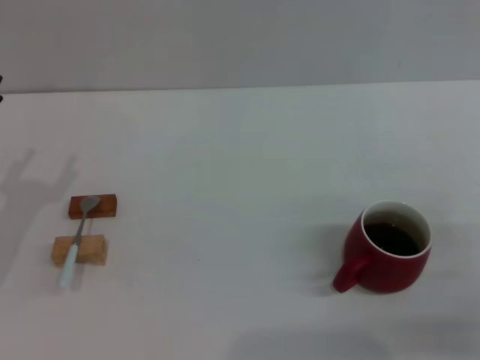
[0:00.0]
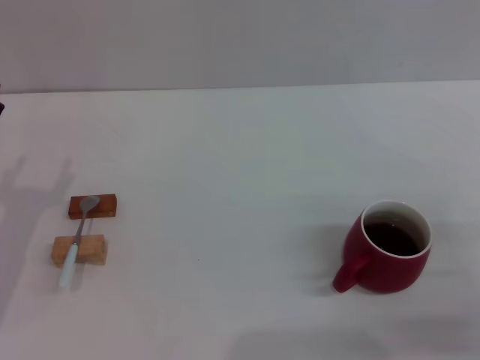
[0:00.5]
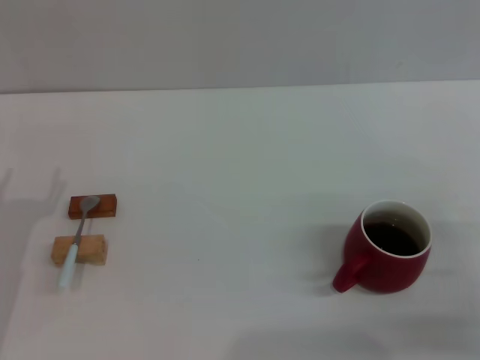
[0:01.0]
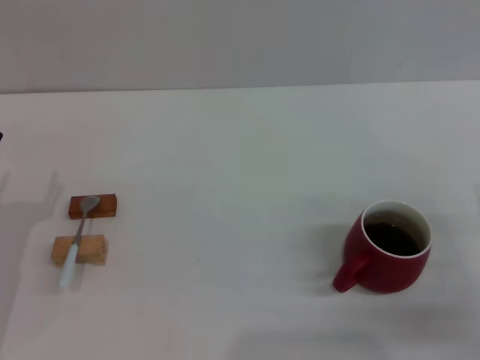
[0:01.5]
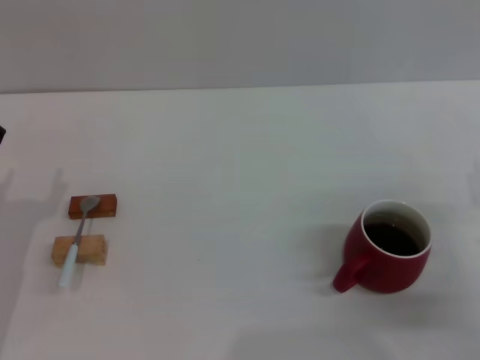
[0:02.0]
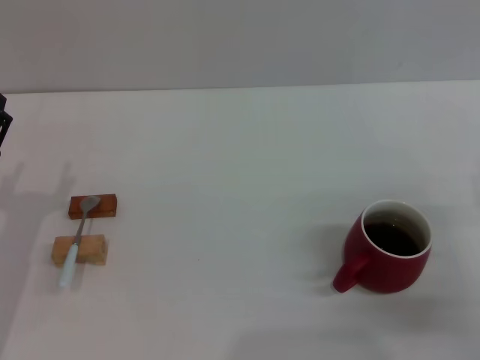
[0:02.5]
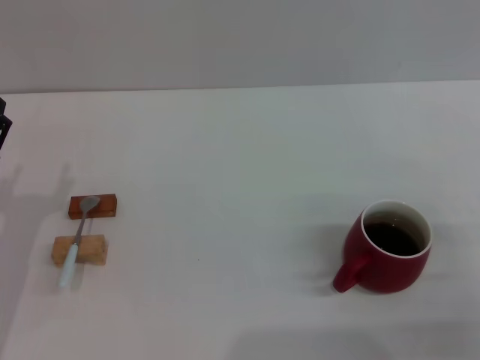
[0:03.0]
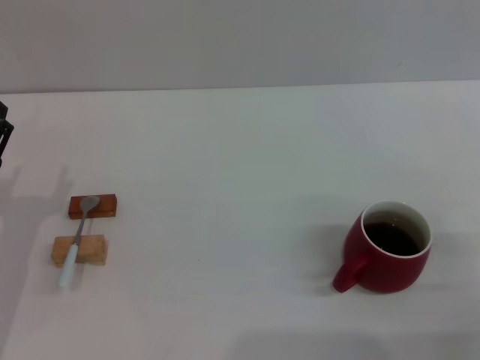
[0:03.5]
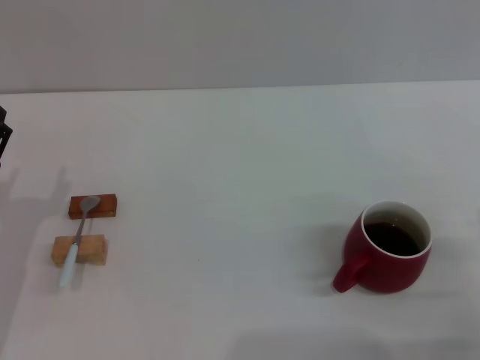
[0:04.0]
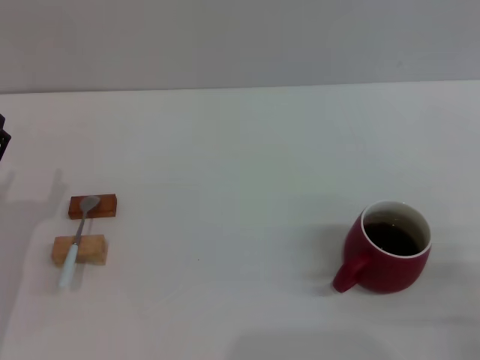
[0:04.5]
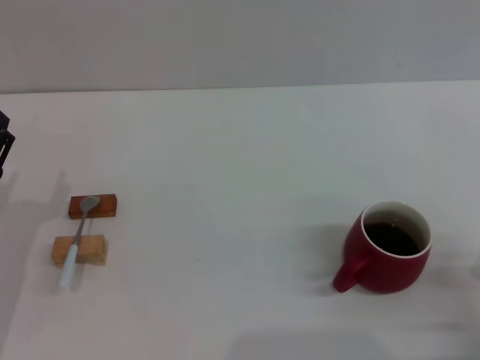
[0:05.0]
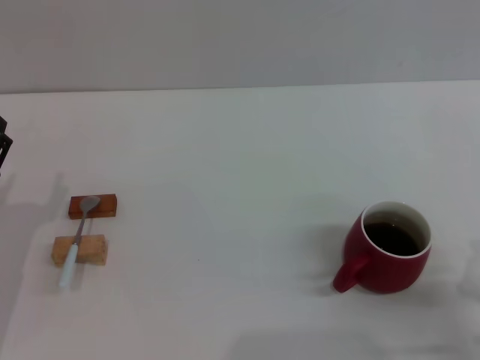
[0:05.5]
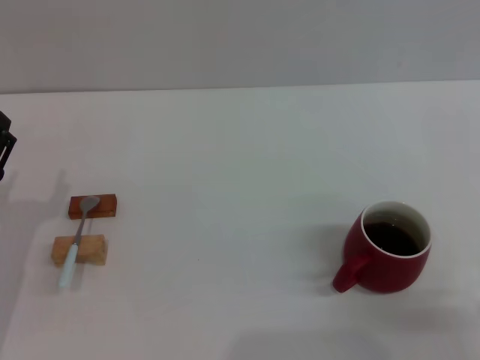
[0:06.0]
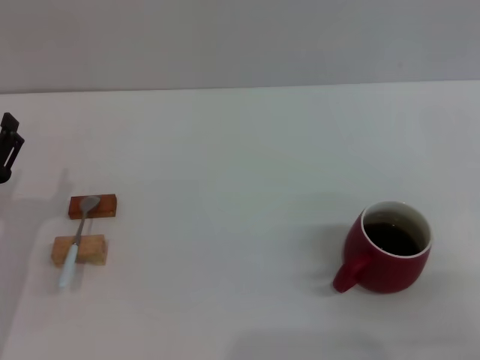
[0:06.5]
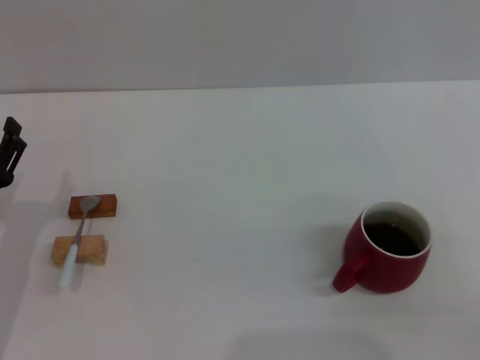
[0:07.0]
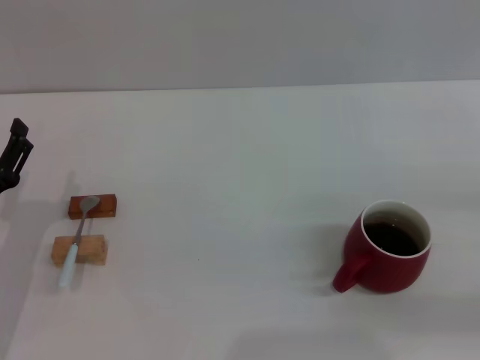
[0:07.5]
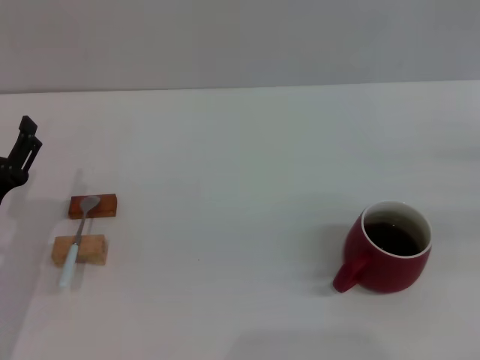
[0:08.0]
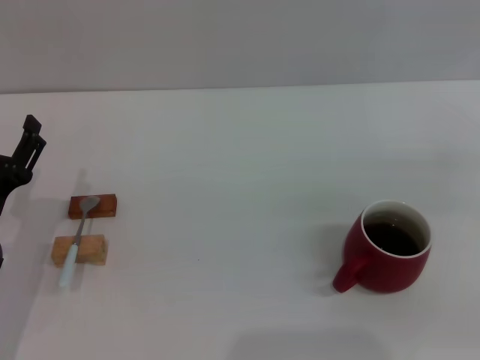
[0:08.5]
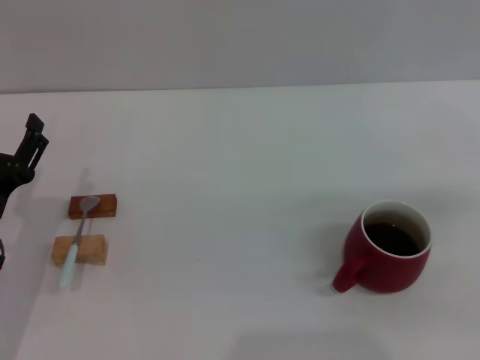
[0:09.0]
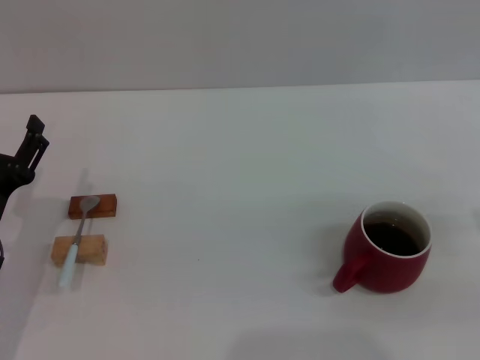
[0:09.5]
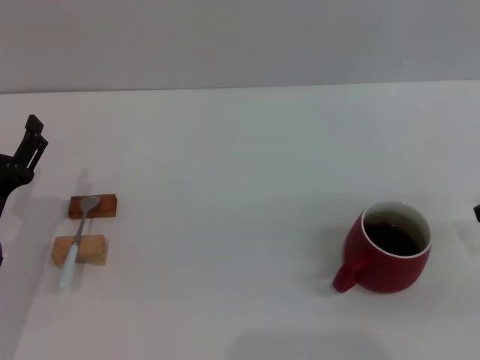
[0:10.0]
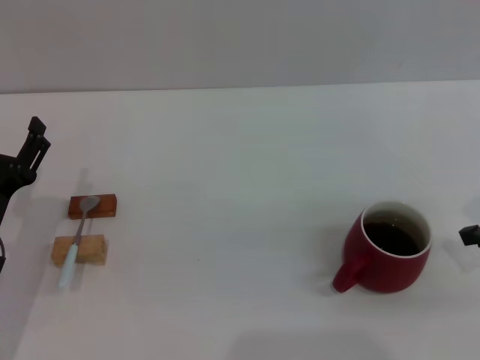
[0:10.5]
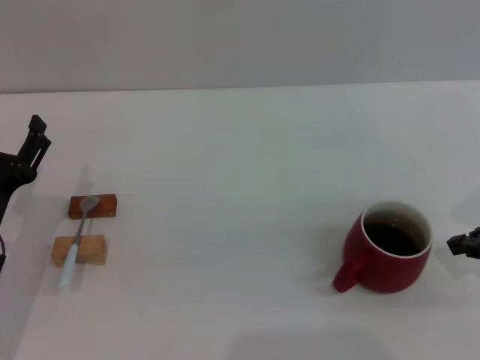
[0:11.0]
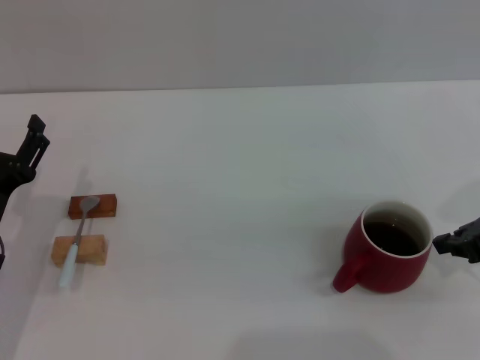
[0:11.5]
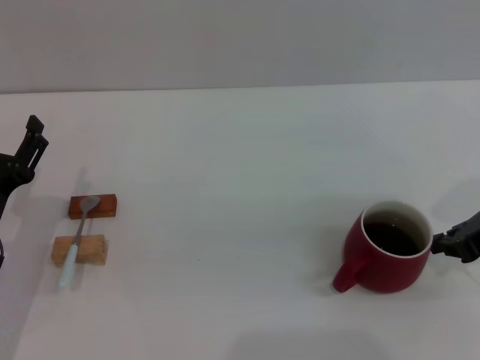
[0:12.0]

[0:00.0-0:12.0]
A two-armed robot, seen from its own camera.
Task of the whole recording: Move the red cup to the center, lift the blue spoon, stir it three times in the cup, and put the spoon into the cup.
0:06.0 to 0:08.0: The right gripper shifts roughly 30 cm forward, to the right and upward.
0:10.0 to 0:12.0: The right gripper changes place by approximately 5 cm.

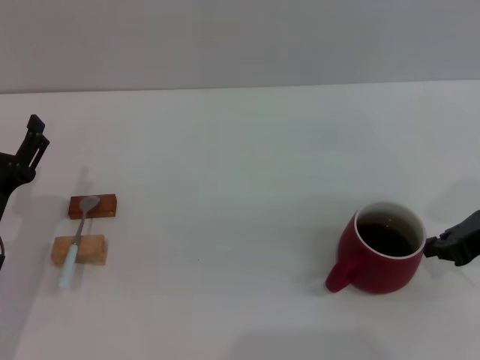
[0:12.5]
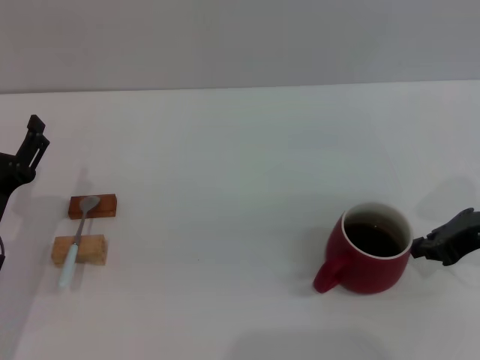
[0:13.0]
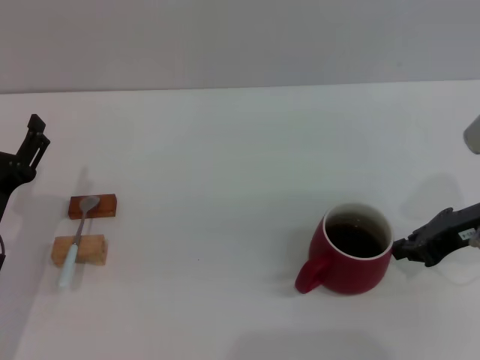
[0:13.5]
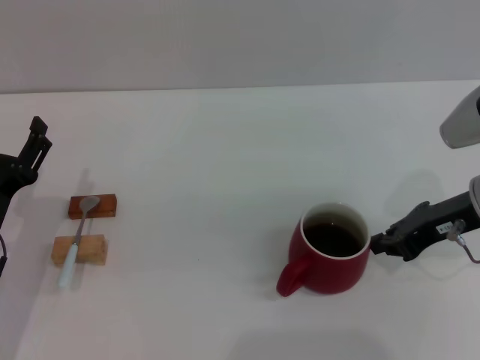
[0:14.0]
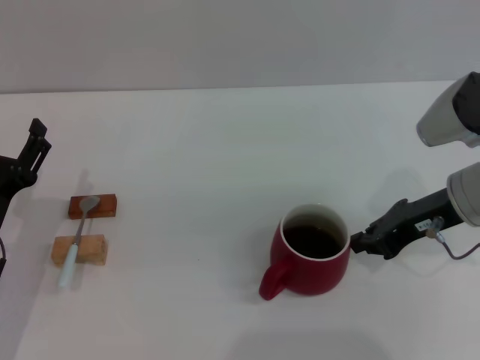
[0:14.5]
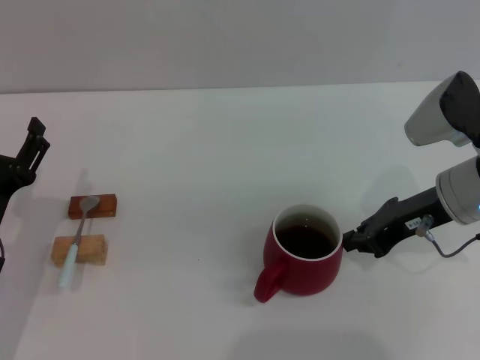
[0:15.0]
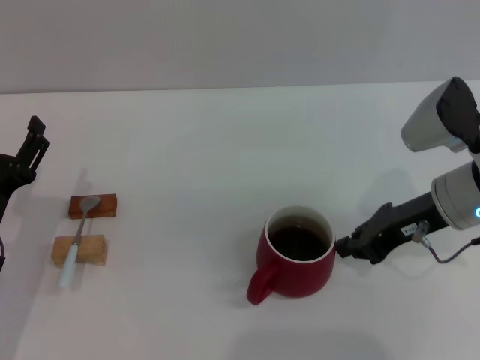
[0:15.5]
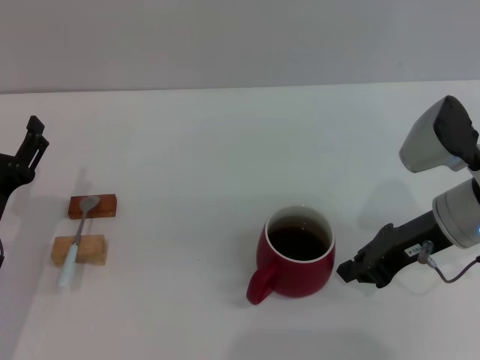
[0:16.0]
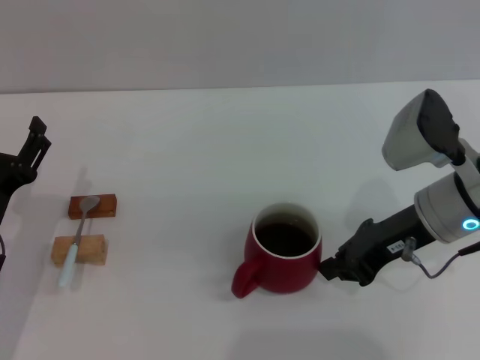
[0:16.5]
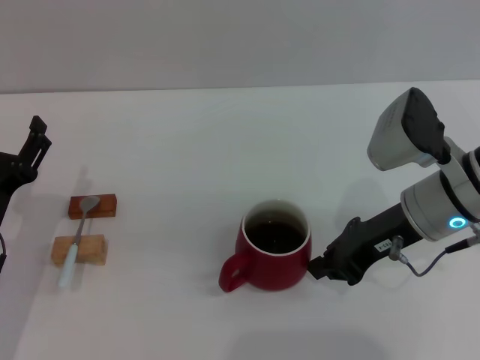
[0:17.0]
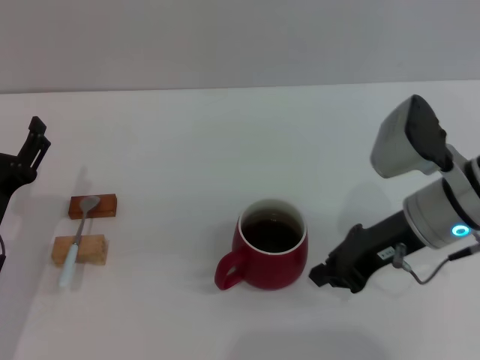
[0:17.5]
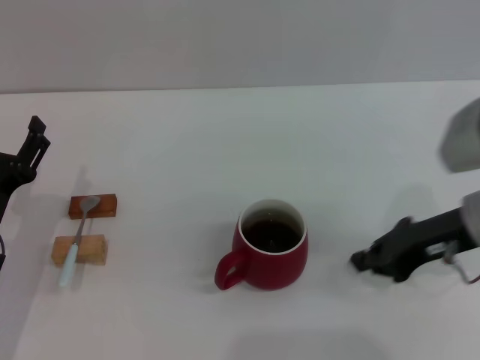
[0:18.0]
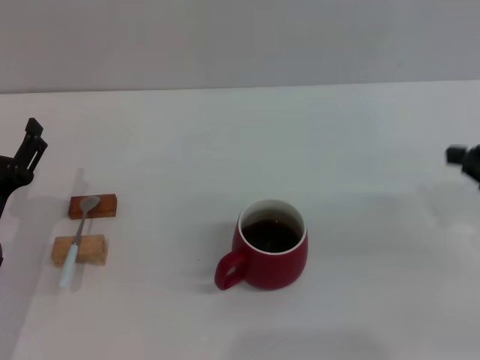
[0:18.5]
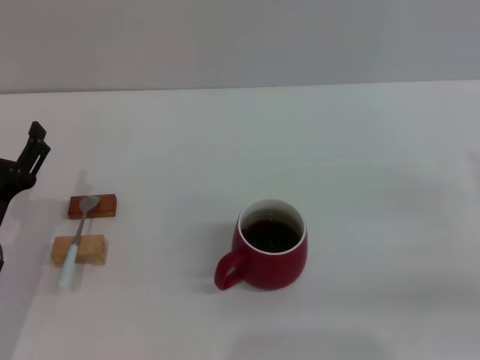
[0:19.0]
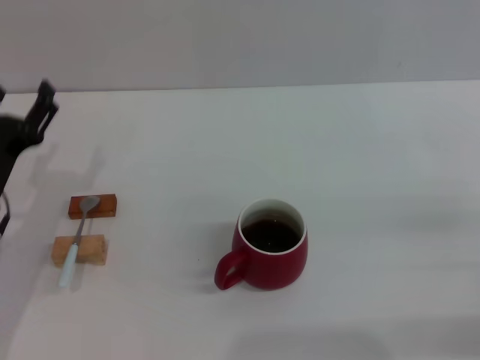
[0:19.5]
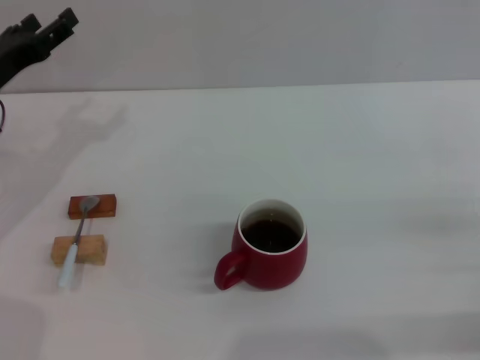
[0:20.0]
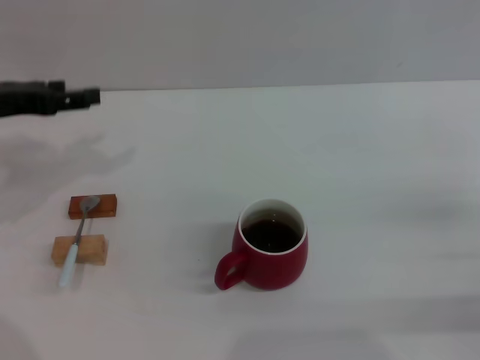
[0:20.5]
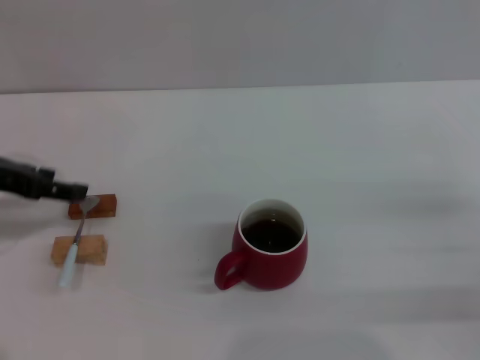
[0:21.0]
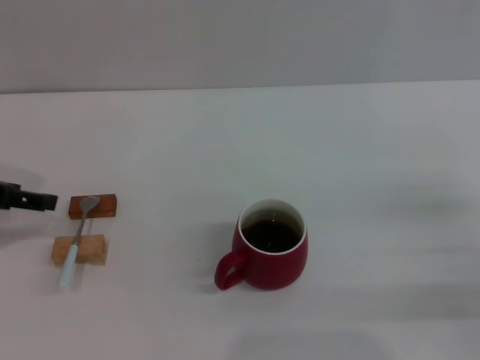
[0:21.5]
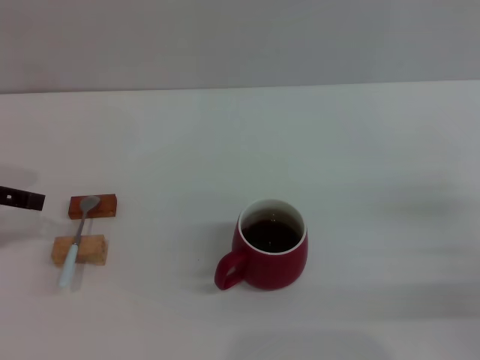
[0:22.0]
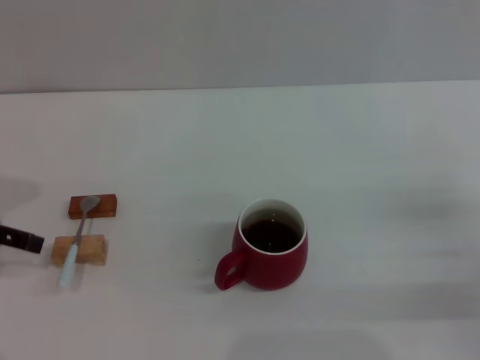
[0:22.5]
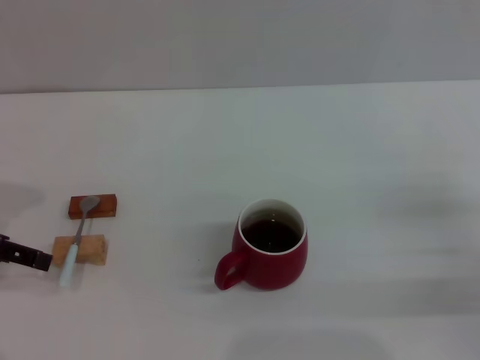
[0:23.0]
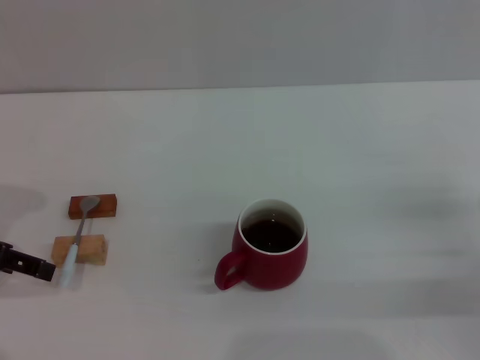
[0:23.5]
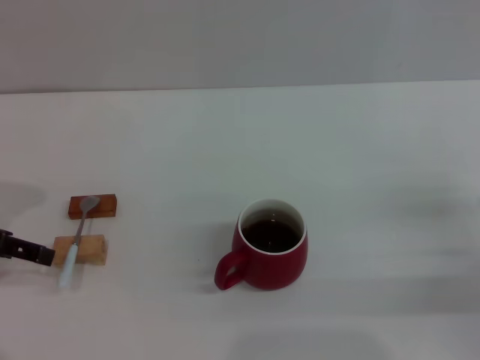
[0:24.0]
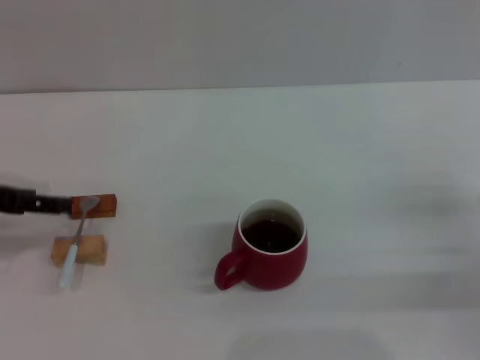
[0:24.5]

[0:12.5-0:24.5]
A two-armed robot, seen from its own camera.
Task of the whole recording: Move the red cup to the center, lift the blue spoon, stir it three times in the cup, and put the spoon into the cup.
Step, 0:12.5 to 0:17.5: Move the cup with coffee to the center of view with the right gripper.
0:12.5 to 0:14.5: The right gripper moves to the left, about 5 cm.
0:14.5 to 0:16.5: There are only small adjustments of the grippers.
0:16.5 to 0:18.5: The right gripper travels to the right by about 15 cm.
0:18.5 to 0:20.5: The right gripper moves downward and backward, roughly 10 cm. The left gripper moves upward and forward, about 20 cm.
0:20.5 to 0:22.5: The left gripper shifts some 5 cm backward.
0:22.5 to 0:24.5: There are only small adjustments of the grippers.

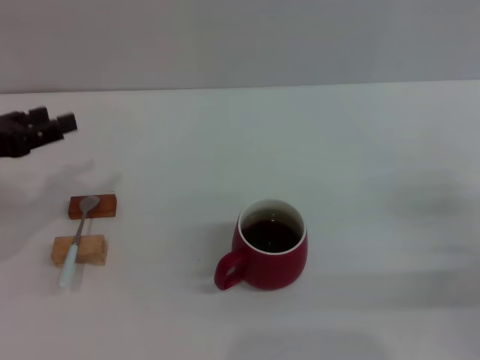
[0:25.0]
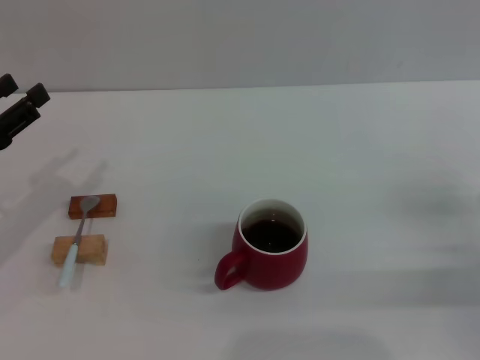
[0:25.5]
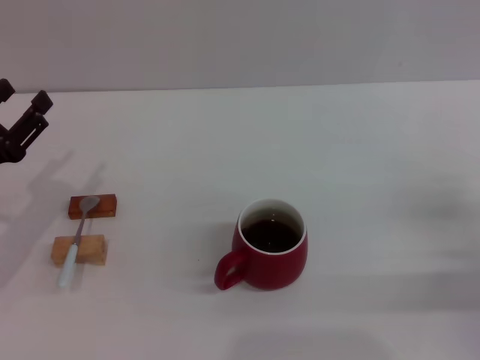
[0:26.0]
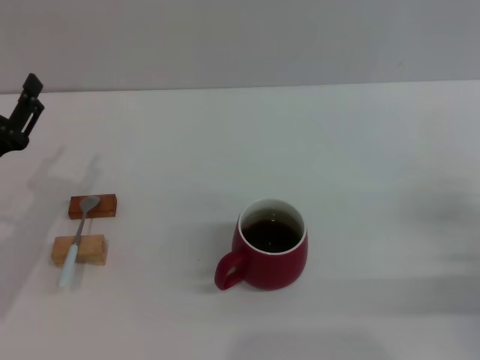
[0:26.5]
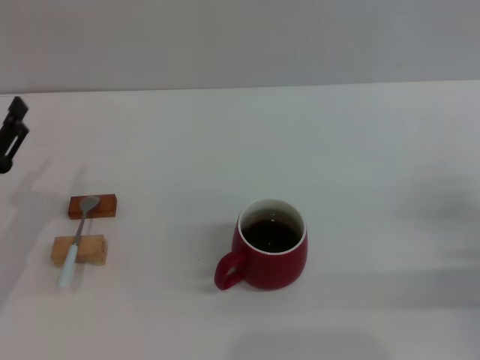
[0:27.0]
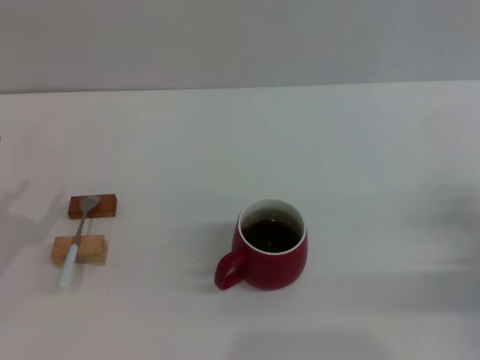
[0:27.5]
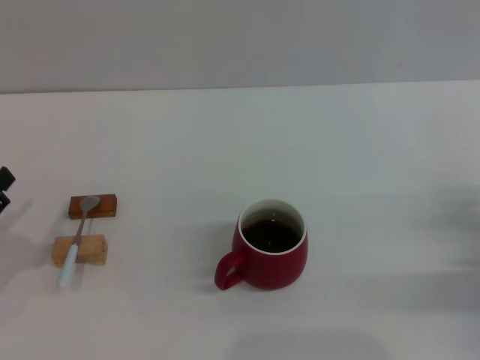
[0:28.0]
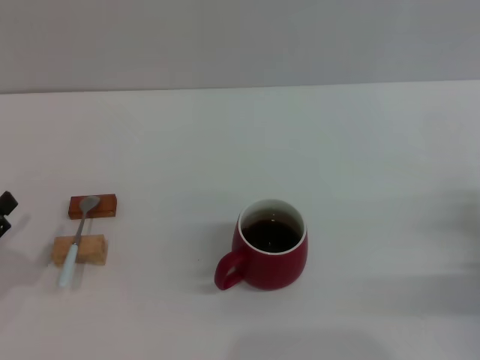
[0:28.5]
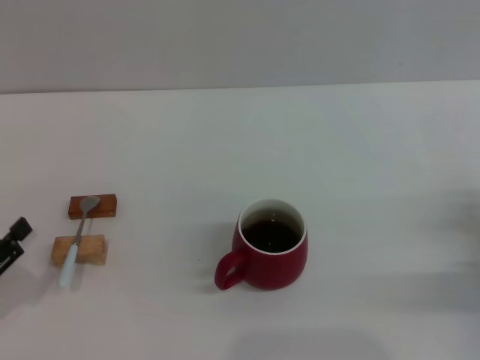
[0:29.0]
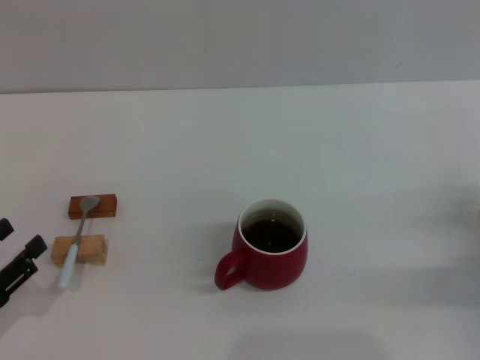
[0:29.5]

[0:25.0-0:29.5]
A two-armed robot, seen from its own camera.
Task of the whole recording: Move the red cup to the center, lift the blue spoon, stir it three times in the cup, and put the spoon into the cup.
0:25.0 to 0:27.0: The left gripper goes approximately 10 cm downward.
0:27.0 to 0:29.5: The left gripper is displaced backward by roughly 10 cm.
